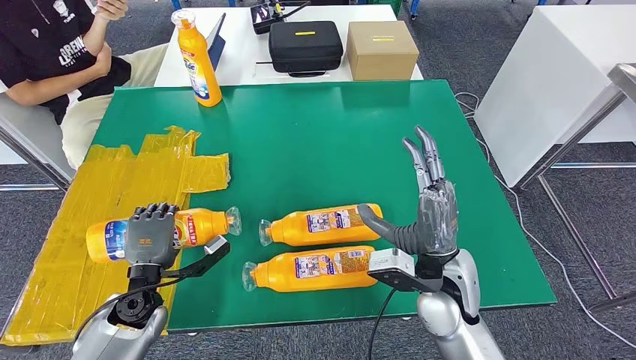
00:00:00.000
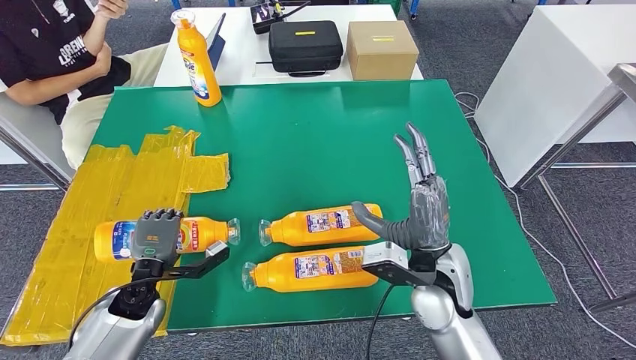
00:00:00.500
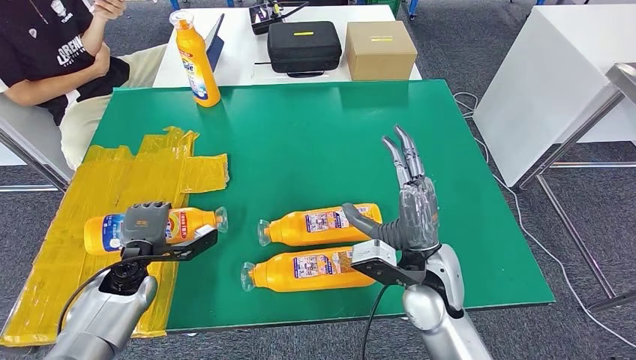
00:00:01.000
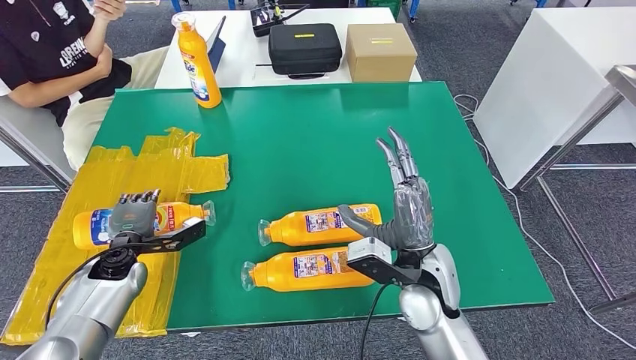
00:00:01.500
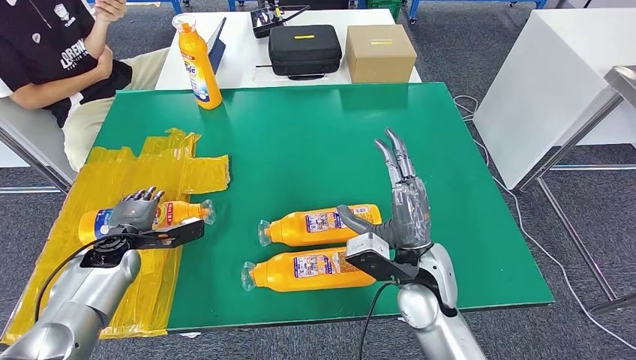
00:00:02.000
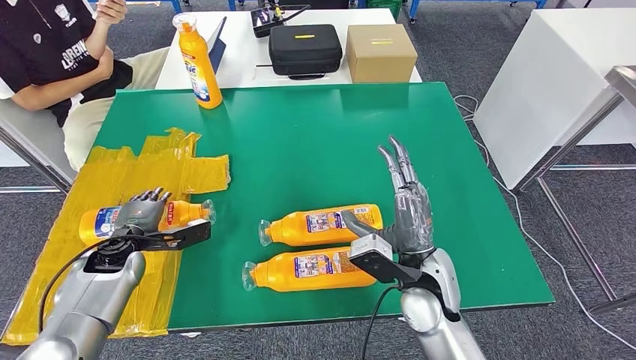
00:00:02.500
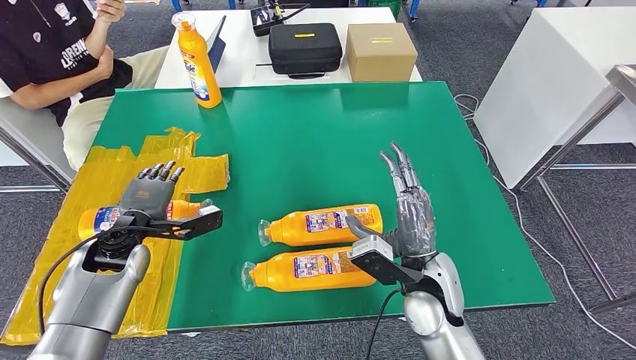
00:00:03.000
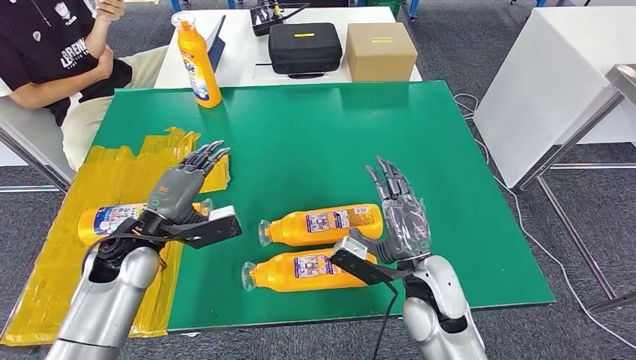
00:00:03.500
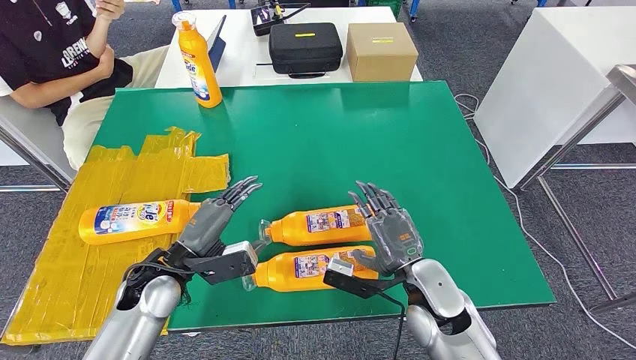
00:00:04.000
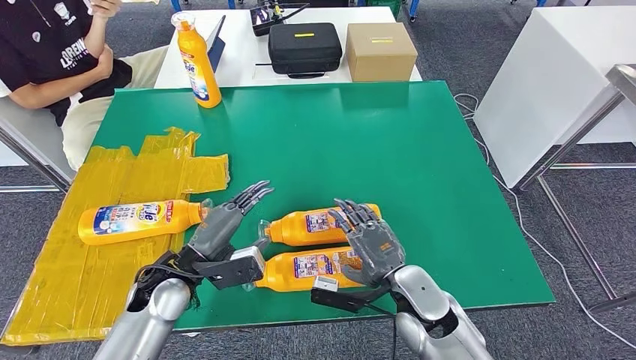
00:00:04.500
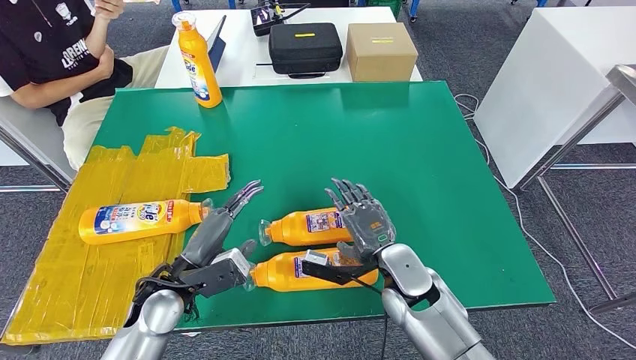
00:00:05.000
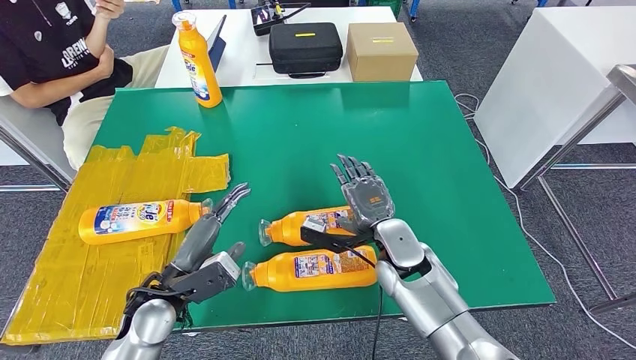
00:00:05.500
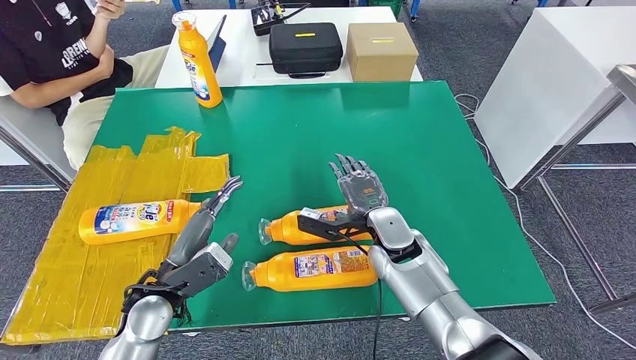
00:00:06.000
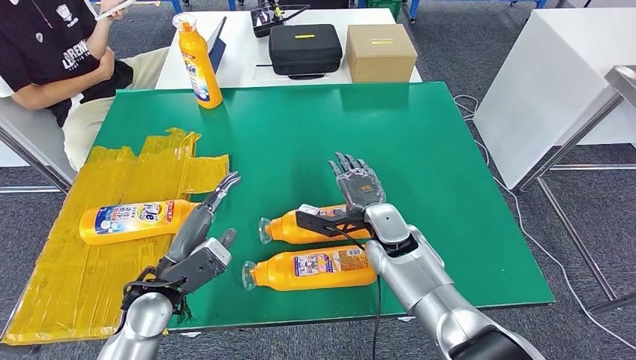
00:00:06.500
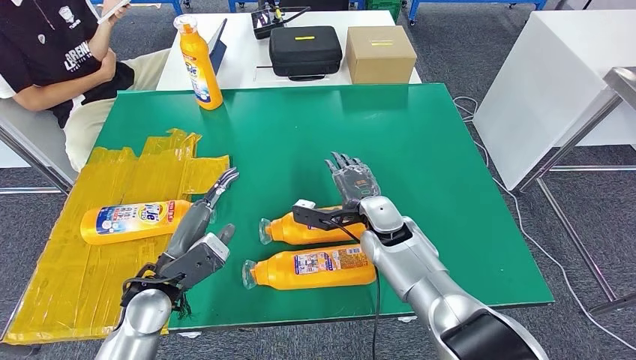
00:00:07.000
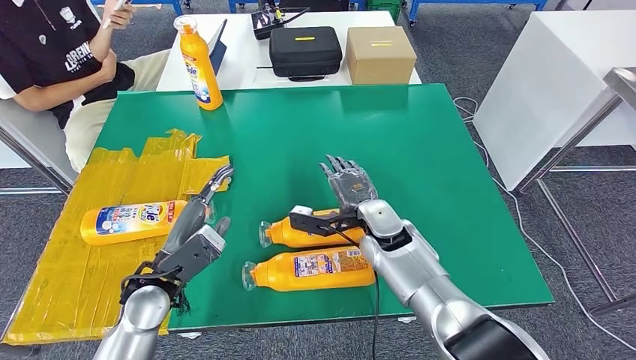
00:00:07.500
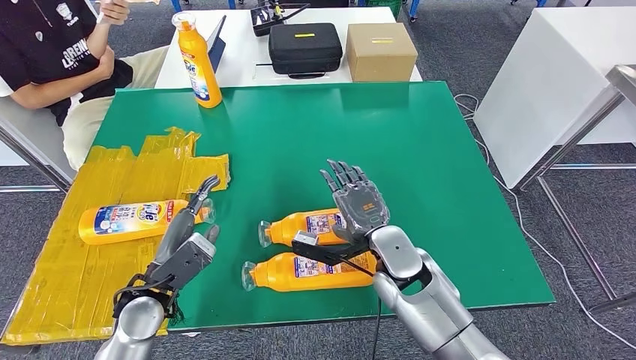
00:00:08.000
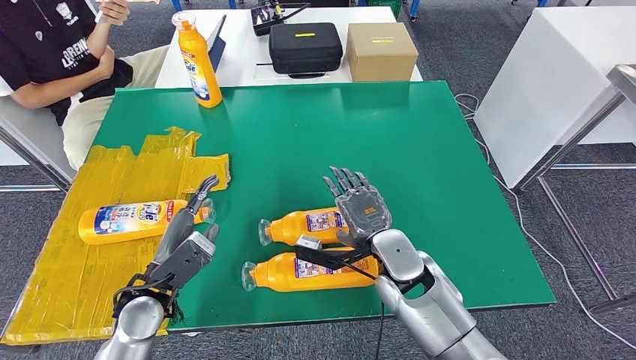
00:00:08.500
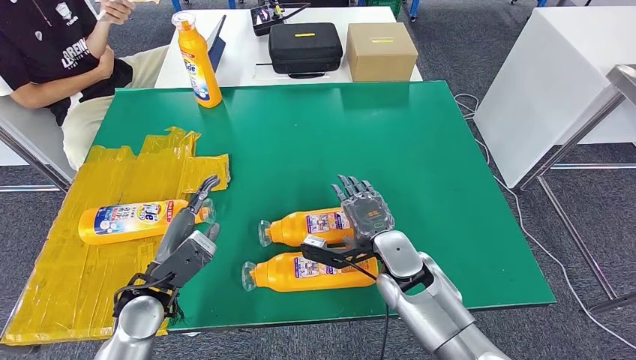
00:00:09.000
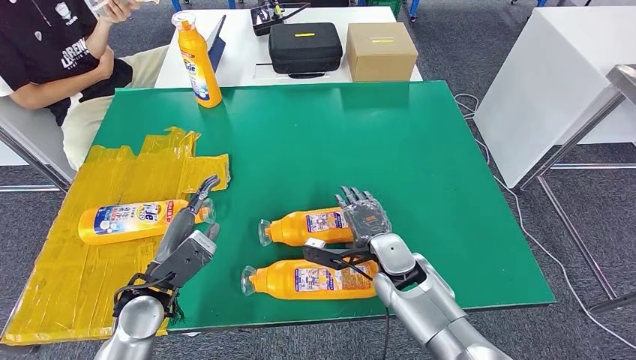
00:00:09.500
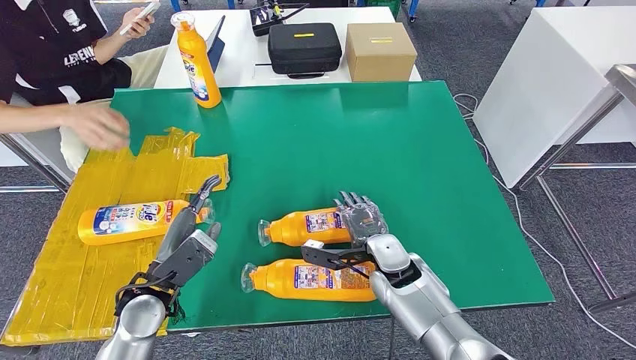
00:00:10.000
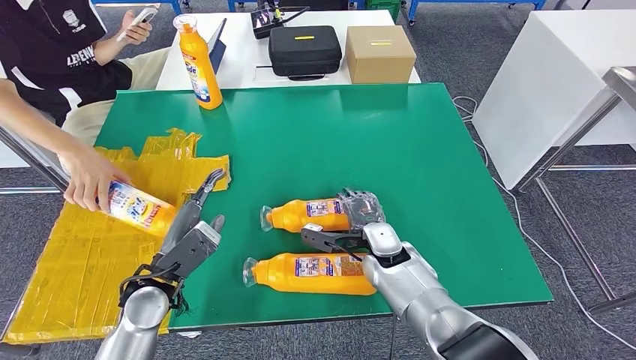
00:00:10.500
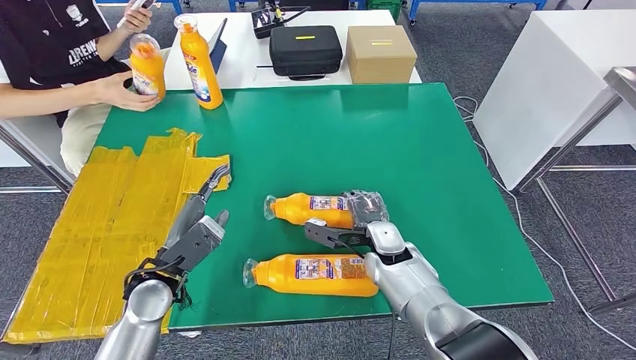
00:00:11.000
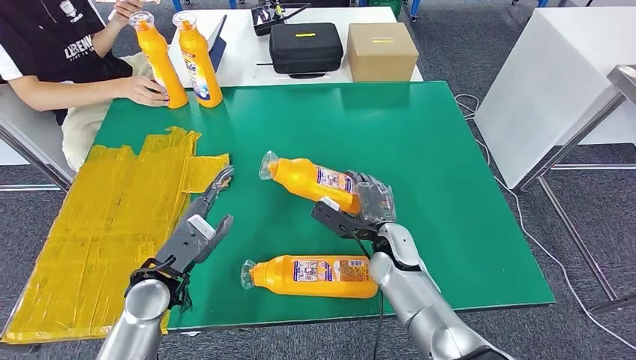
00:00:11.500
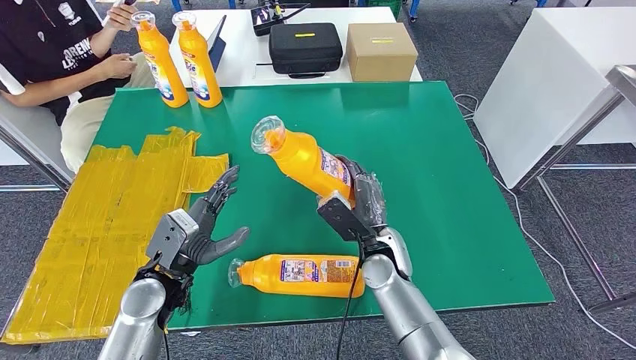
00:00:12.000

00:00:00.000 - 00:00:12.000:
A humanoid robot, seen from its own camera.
Step, 00:00:00.000 - 00:00:02.000: Flip the bottle to face forward.
00:00:02.000 - 00:00:04.000: The right hand ends up approximately 5 cm from where it was, while the left hand goes roughly 15 cm to the right and backward.
00:00:04.000 - 00:00:06.000: The right hand moves forward, approximately 10 cm.
00:00:06.000 - 00:00:08.000: The right hand is displaced backward by approximately 5 cm.
00:00:08.000 - 00:00:10.000: The right hand is displaced downward by about 5 cm.

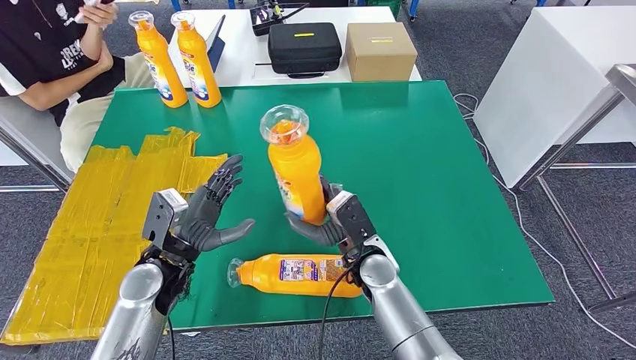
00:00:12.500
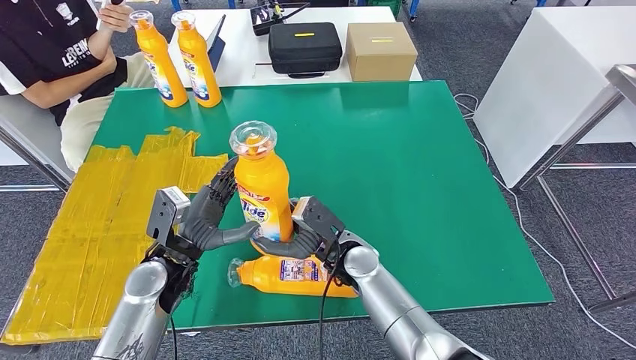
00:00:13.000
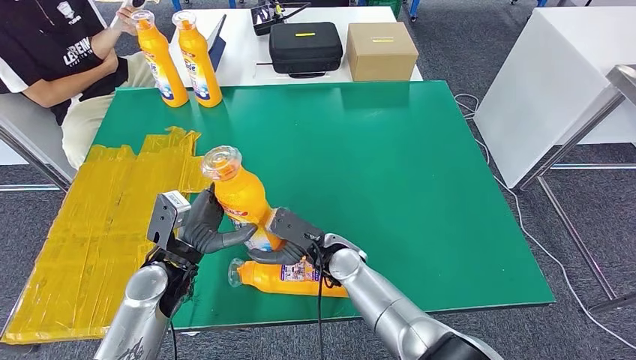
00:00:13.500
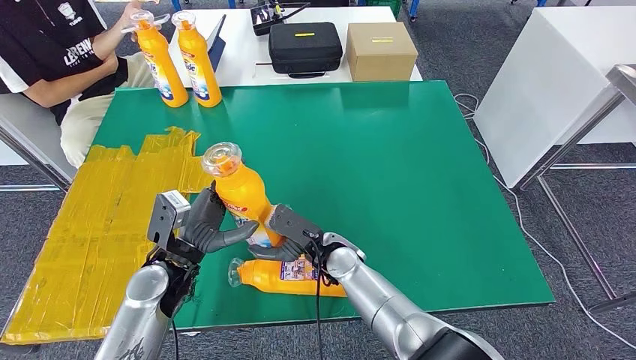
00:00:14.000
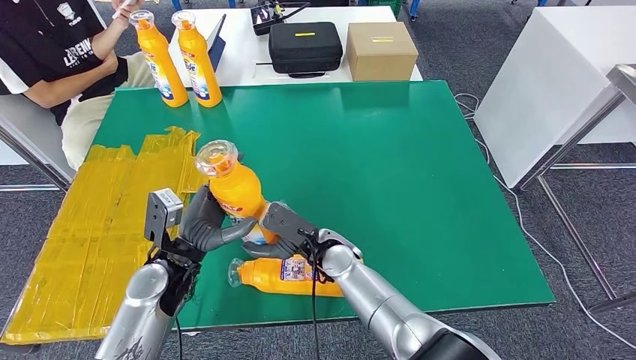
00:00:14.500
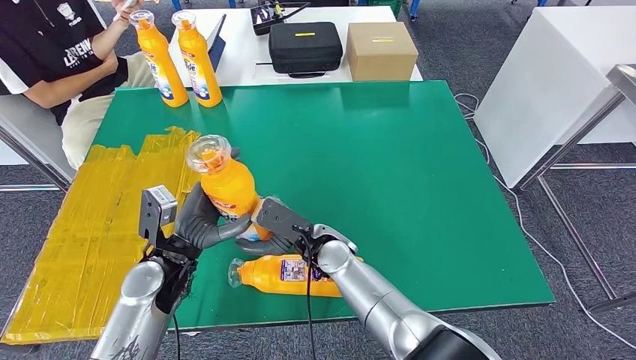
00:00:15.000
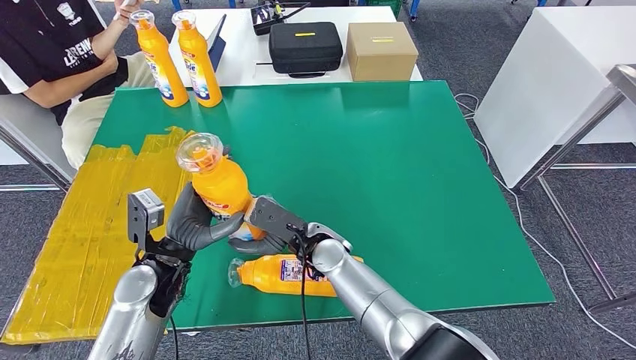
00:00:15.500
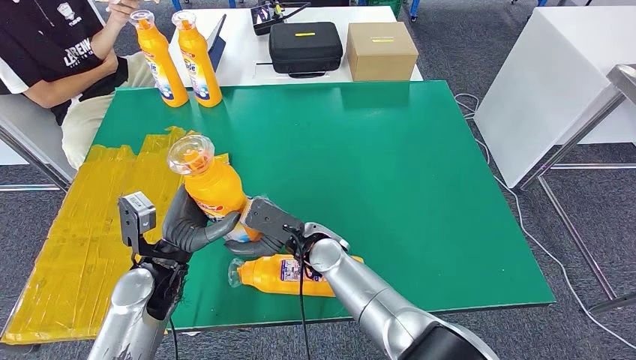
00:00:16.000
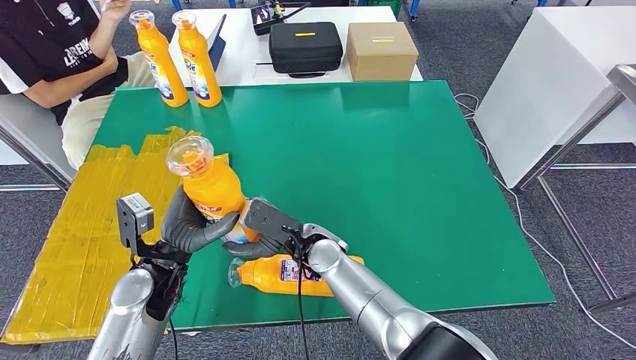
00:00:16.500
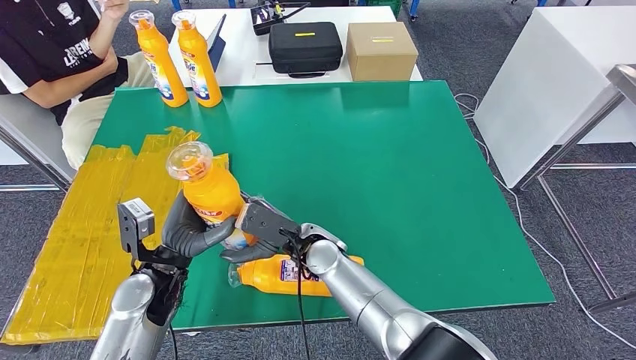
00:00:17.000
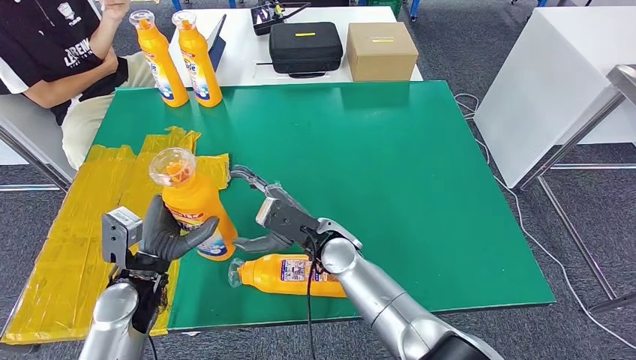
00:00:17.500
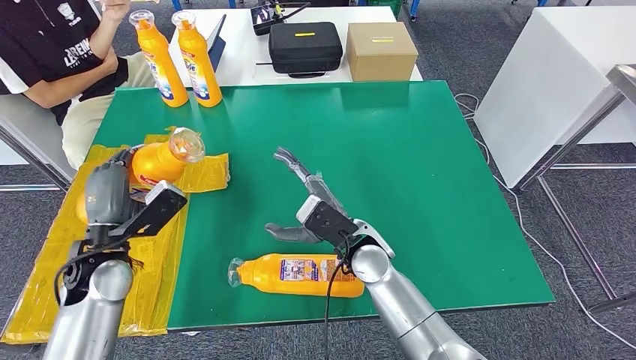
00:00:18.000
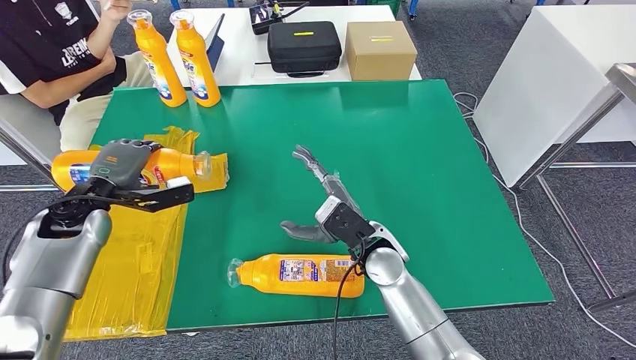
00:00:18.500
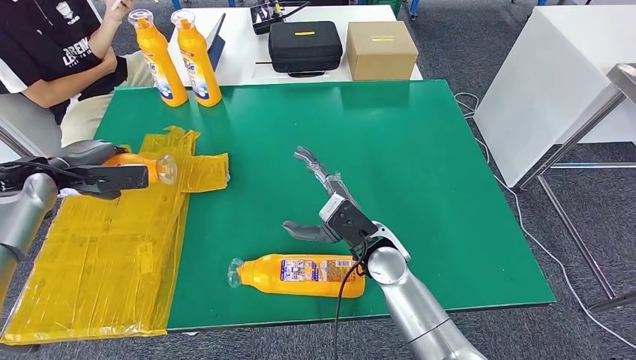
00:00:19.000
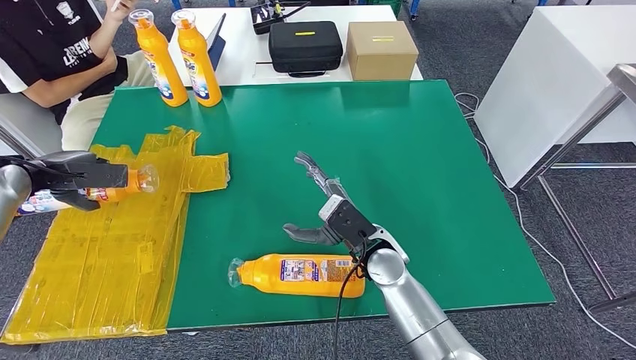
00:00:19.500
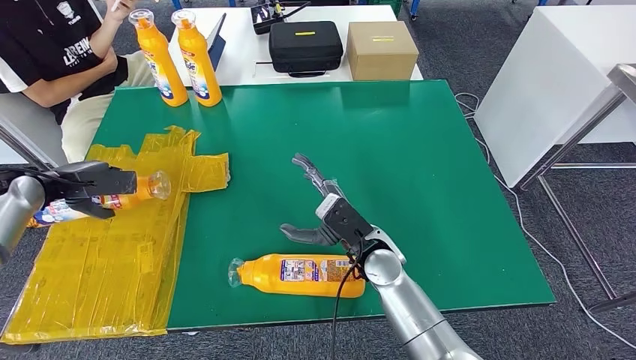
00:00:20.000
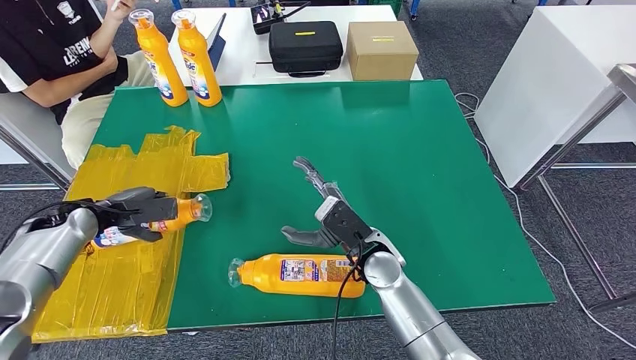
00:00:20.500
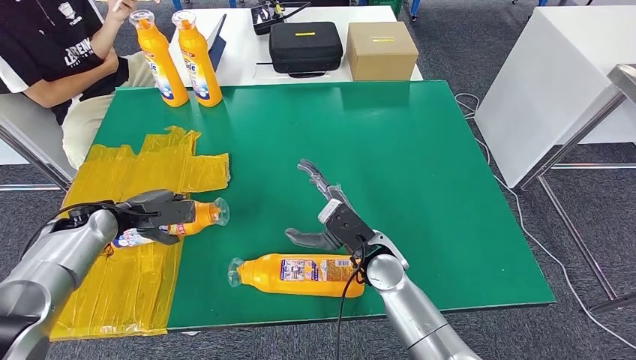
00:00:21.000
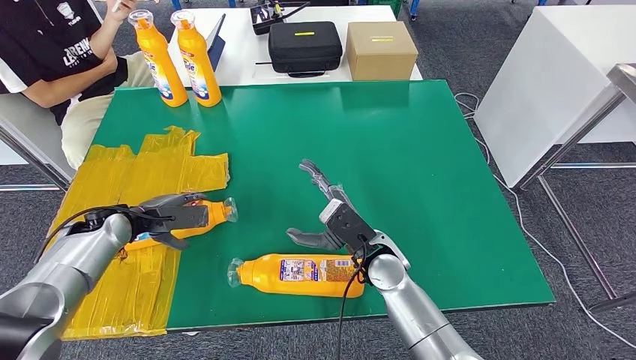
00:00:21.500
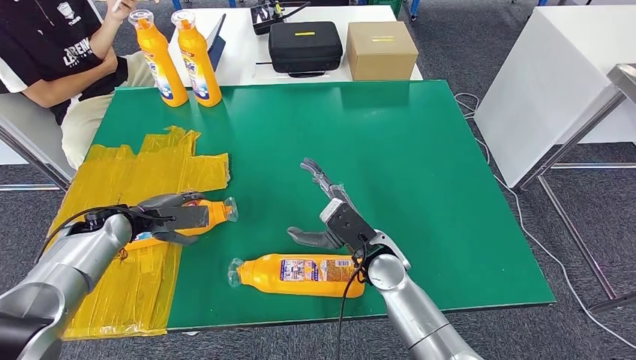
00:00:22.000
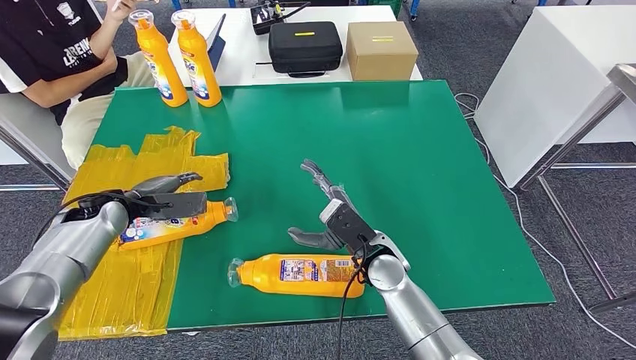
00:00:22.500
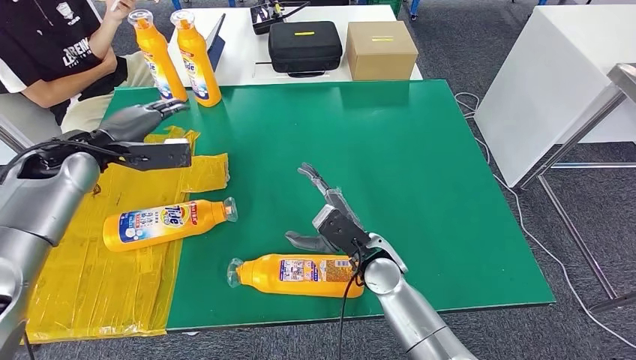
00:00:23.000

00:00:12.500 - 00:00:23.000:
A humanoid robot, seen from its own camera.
Step, 00:00:12.500 - 00:00:15.500: Pick up the bottle from the table.
Step, 00:00:16.000 - 00:00:21.500: Flip the bottle to face forward.
00:00:12.500 - 00:00:14.500: The right hand heads to the left, covering approximately 5 cm.
00:00:14.500 - 00:00:16.500: There are only small adjustments of the hands.
00:00:16.500 - 00:00:19.000: The left hand travels to the left, forward and upward by approximately 25 cm. Meanwhile the right hand moves to the right, approximately 10 cm.
00:00:19.000 - 00:00:21.000: The left hand shifts roughly 10 cm downward and to the right.
00:00:21.000 - 00:00:23.000: The left hand heads upward, covering approximately 15 cm.
